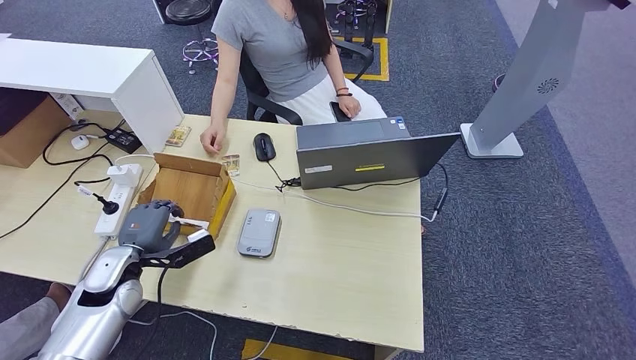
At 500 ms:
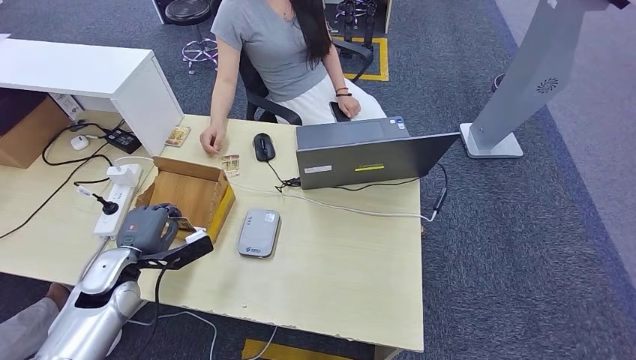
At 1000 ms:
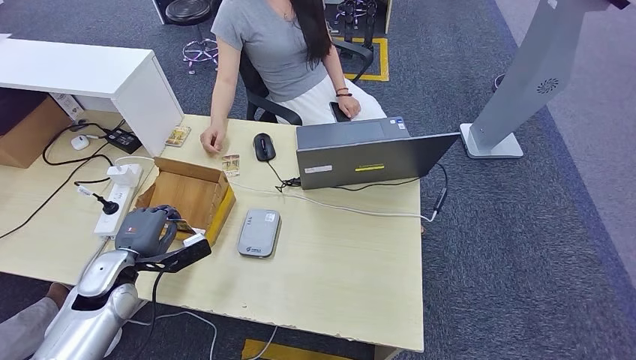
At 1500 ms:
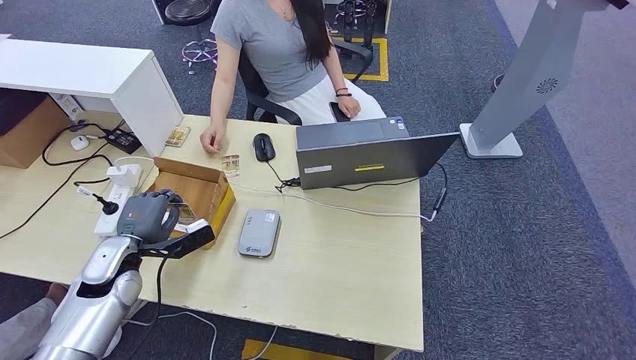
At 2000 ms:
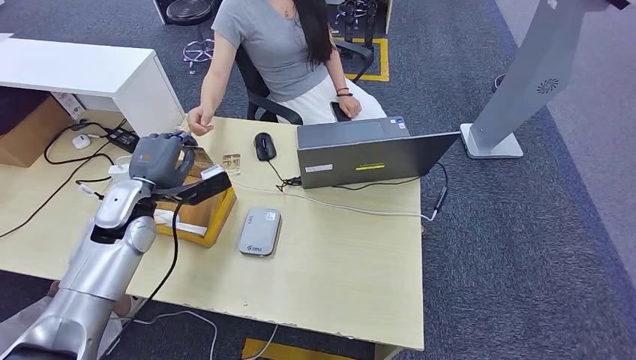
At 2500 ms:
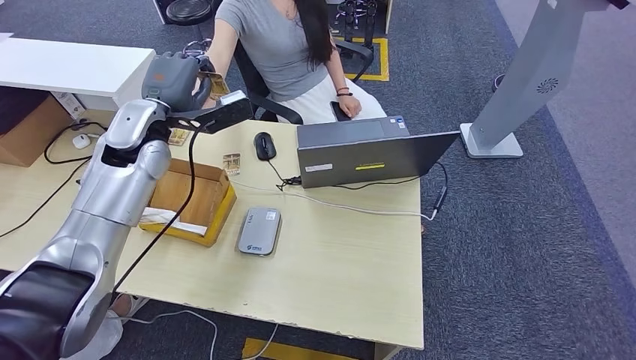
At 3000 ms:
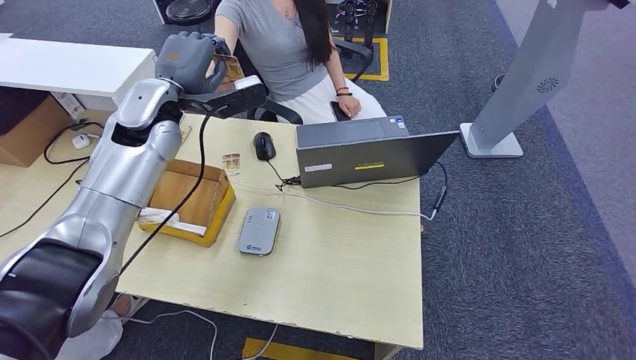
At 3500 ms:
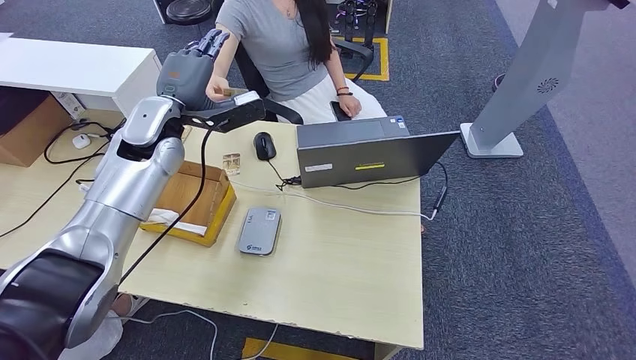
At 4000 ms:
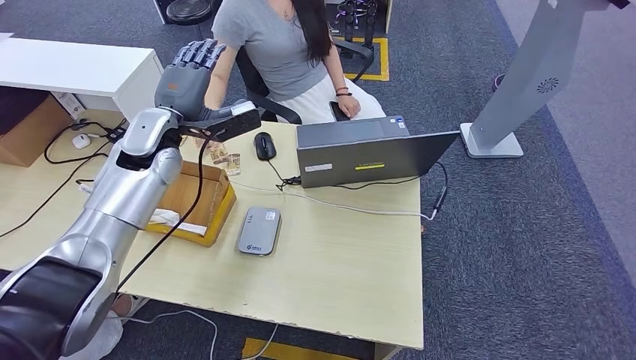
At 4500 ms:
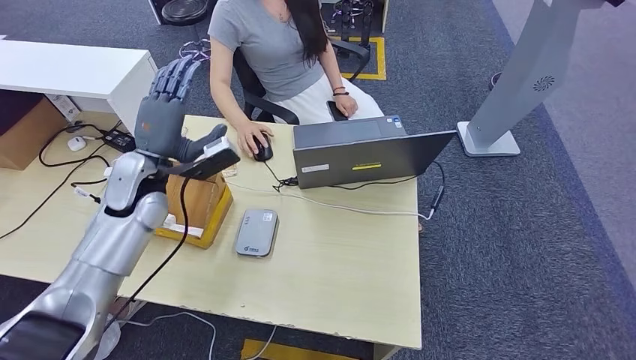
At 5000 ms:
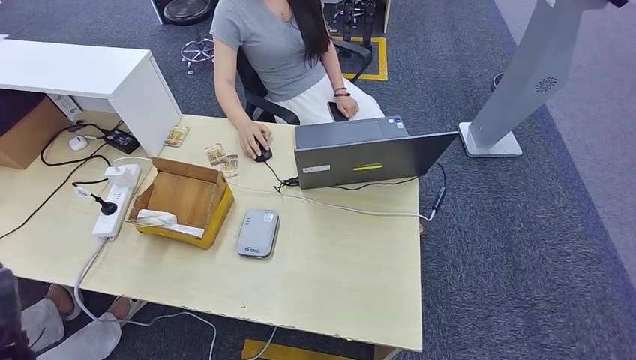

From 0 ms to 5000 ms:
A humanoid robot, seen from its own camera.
Step, from 2000 ms to 5000 ms: Hand the room key to the person.
From 0 ms to 2500 ms: The left hand goes some 25 cm upward and forward.
From 2500 ms to 5000 ms: The left hand heads backward, downward and to the left, covering about 35 cm.
